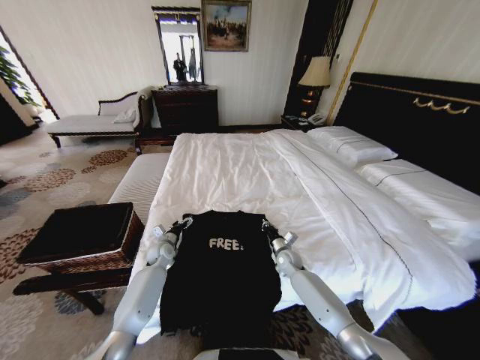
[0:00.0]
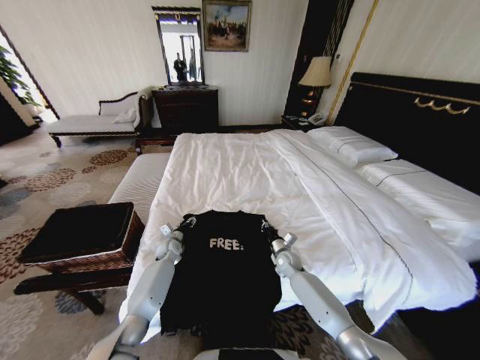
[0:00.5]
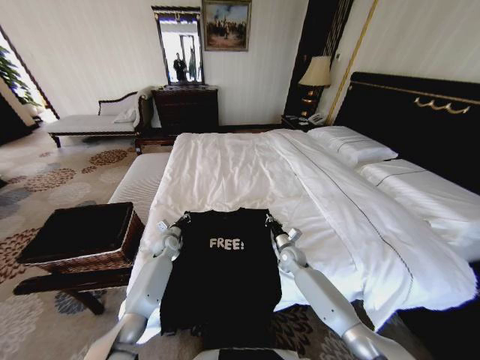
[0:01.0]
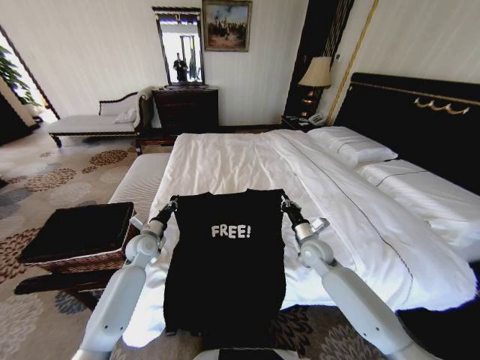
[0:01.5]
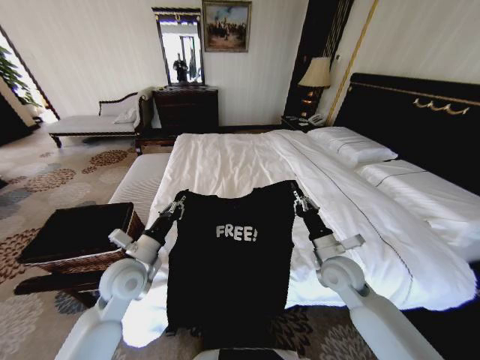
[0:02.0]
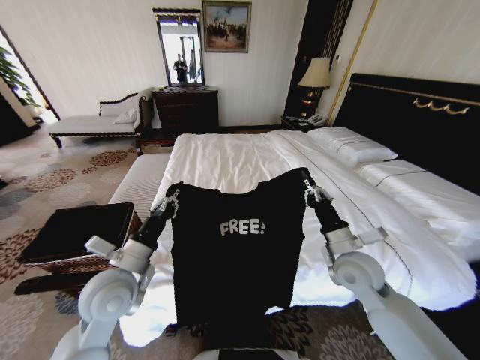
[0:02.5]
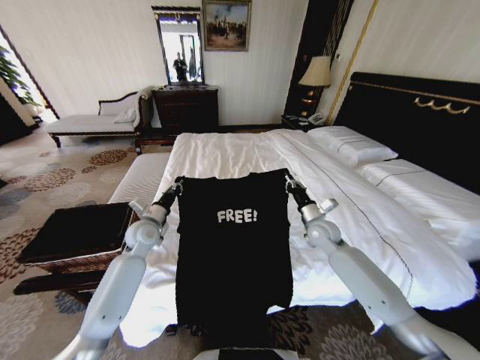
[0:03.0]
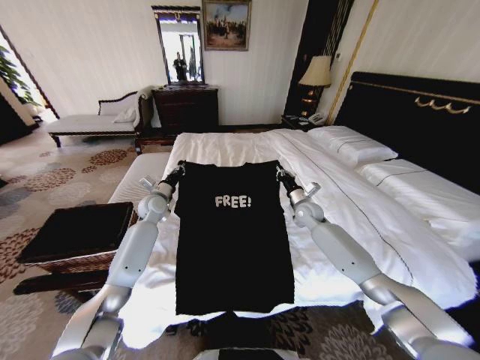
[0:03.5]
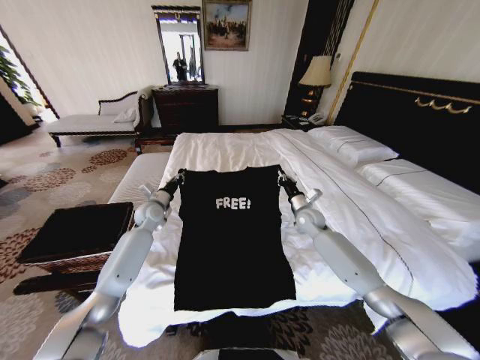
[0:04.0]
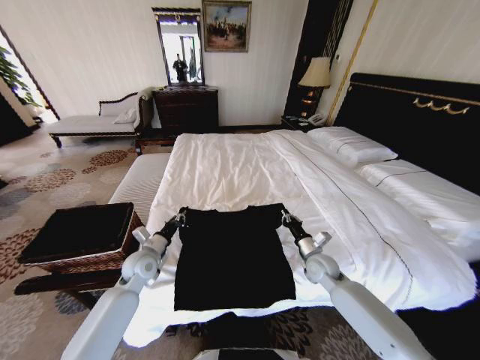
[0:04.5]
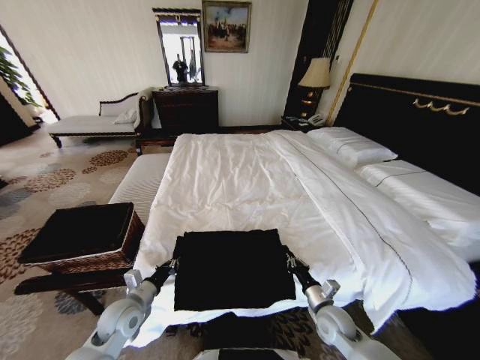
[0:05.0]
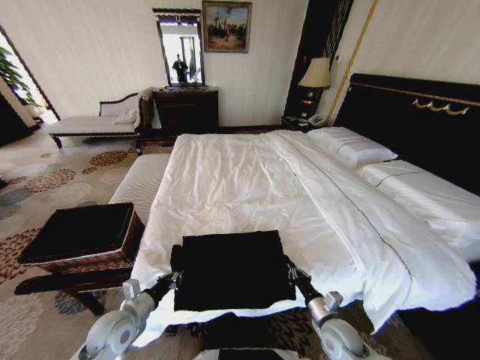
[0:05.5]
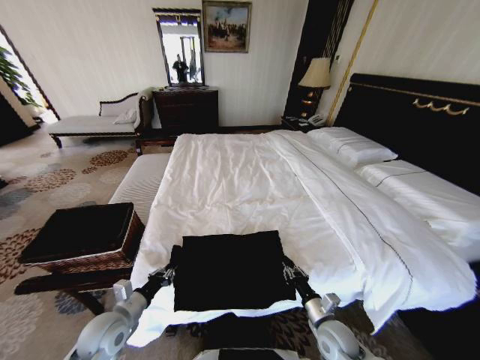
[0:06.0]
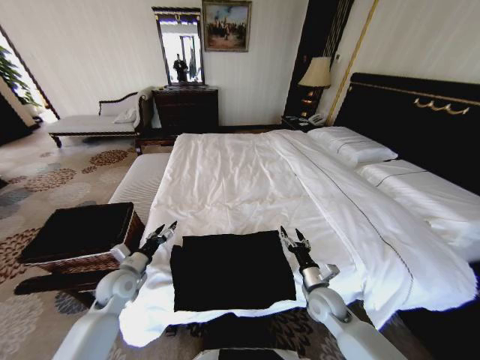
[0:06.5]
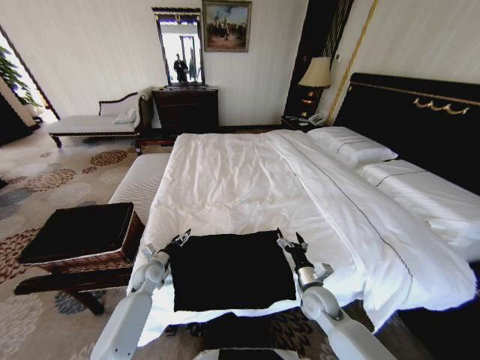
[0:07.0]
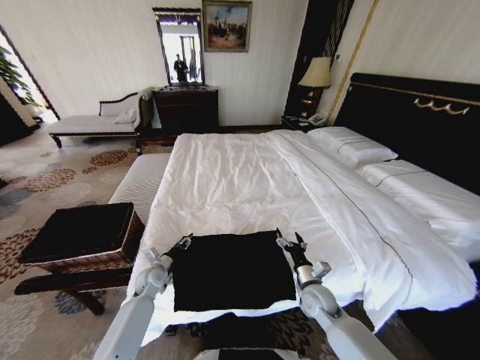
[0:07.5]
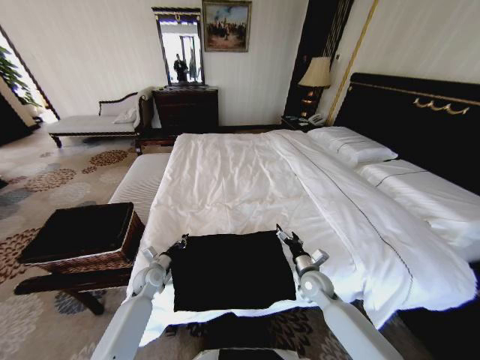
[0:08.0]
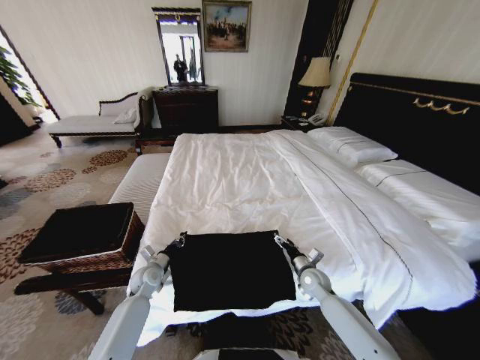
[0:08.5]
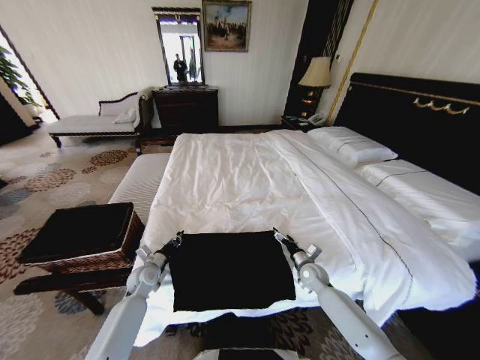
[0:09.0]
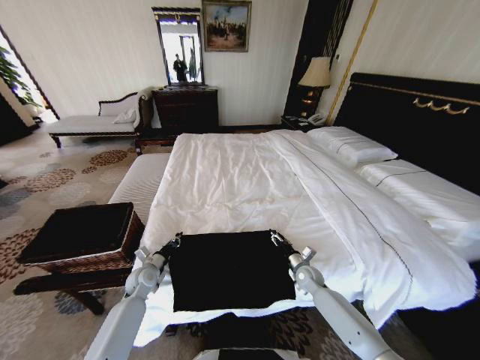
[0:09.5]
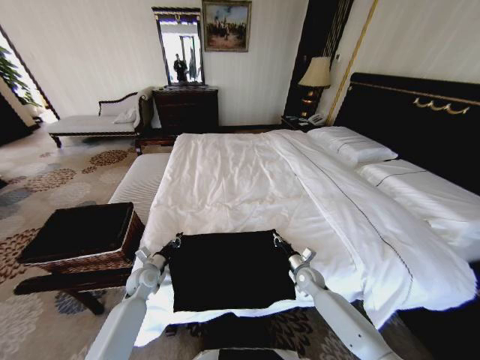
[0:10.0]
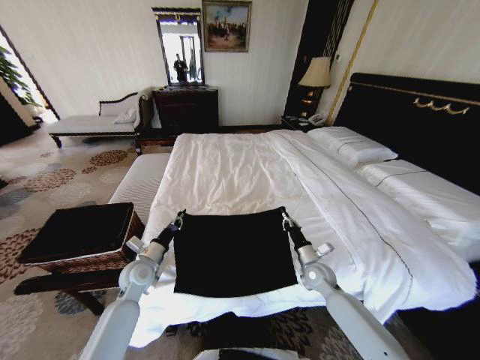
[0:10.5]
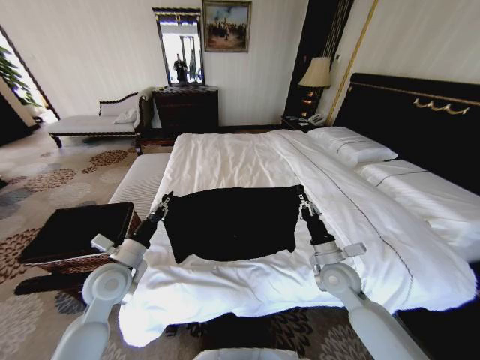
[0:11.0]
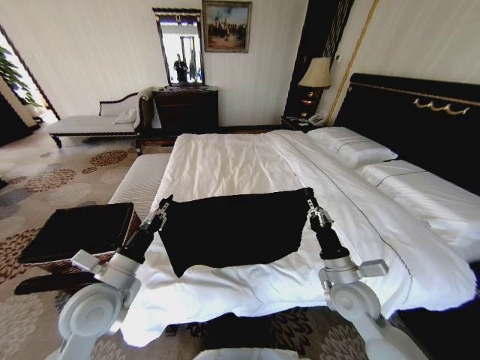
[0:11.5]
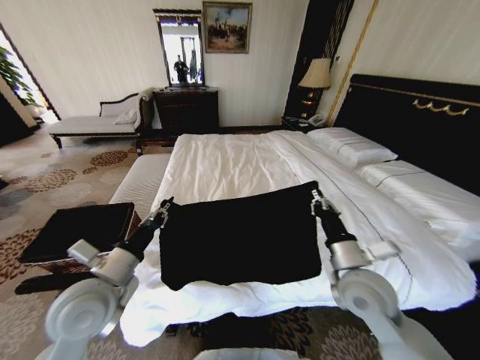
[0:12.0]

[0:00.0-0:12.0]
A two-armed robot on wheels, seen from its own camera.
Task of the whole recording: Fold the clothes on the bed and place them into the basket.
0:00.0 to 0:02.0: Both grippers move upward and backward, approximately 25 cm. The left gripper closes its fingers.
0:02.0 to 0:04.0: Both grippers move forward, roughly 20 cm.
0:04.0 to 0:06.0: The left gripper shifts approximately 30 cm backward. The right gripper goes about 35 cm backward and downward.
0:06.0 to 0:08.0: The right gripper is displaced forward by approximately 15 cm, and opens its fingers. The left gripper goes about 20 cm forward and downward, and opens, then closes again.
0:08.0 to 0:10.0: The right gripper travels downward by about 5 cm, and closes up.
0:10.0 to 0:12.0: Both grippers move upward and backward, some 30 cm.

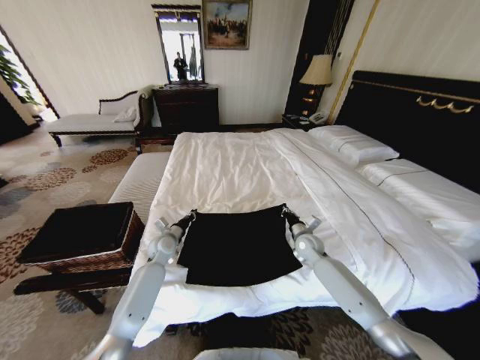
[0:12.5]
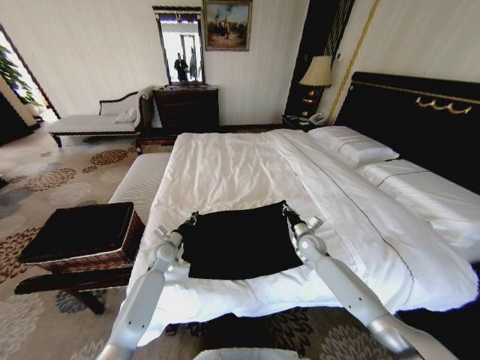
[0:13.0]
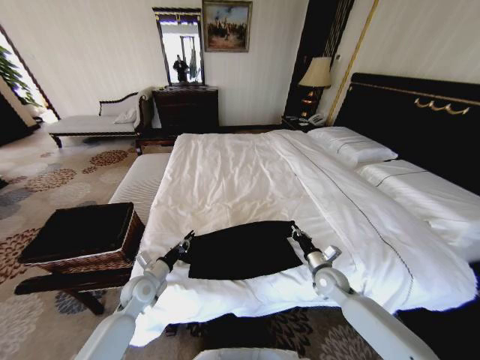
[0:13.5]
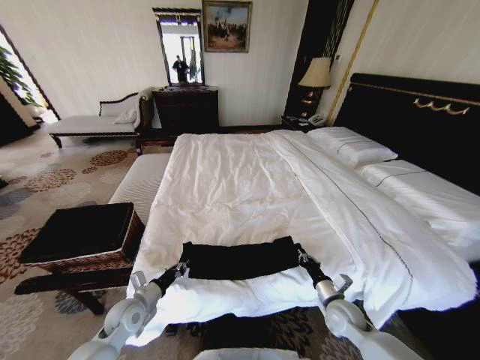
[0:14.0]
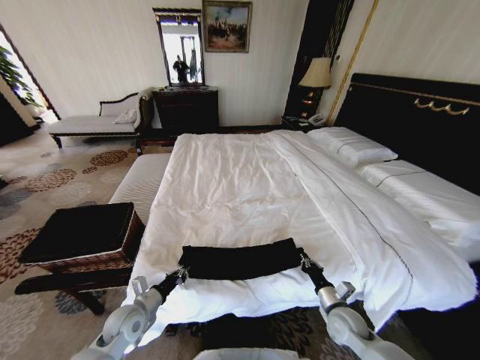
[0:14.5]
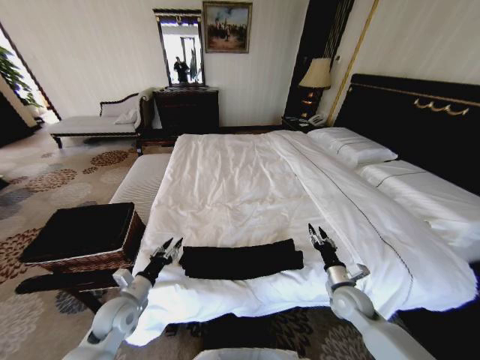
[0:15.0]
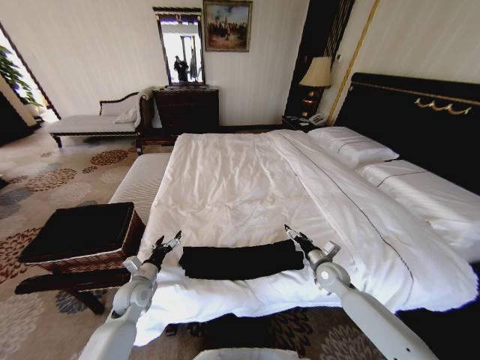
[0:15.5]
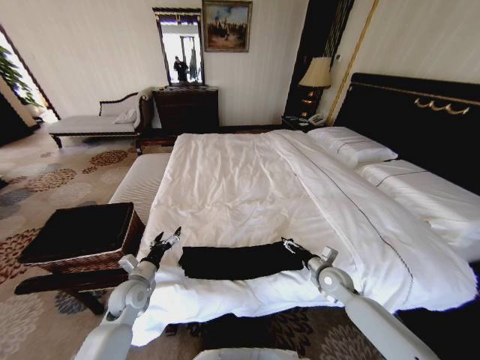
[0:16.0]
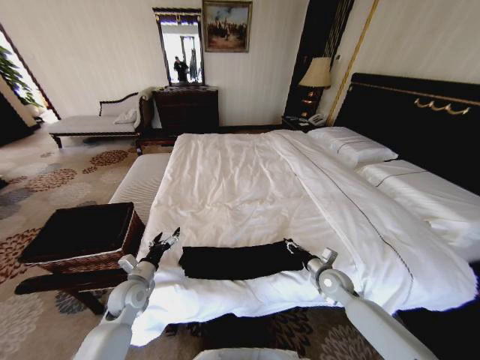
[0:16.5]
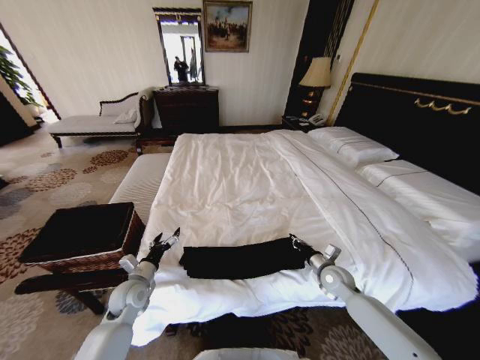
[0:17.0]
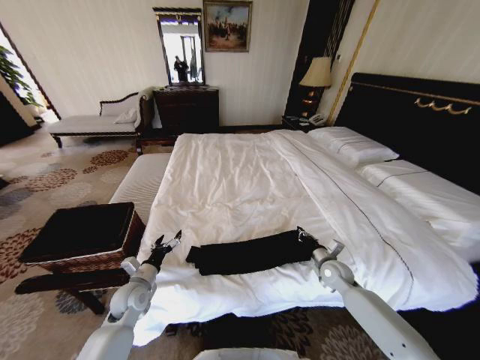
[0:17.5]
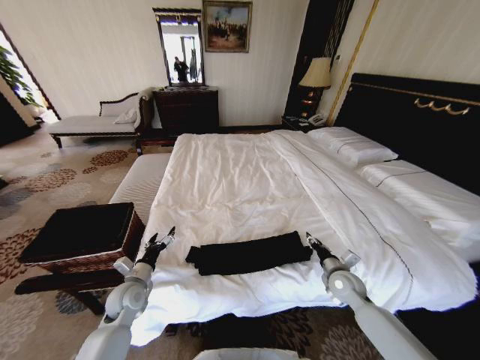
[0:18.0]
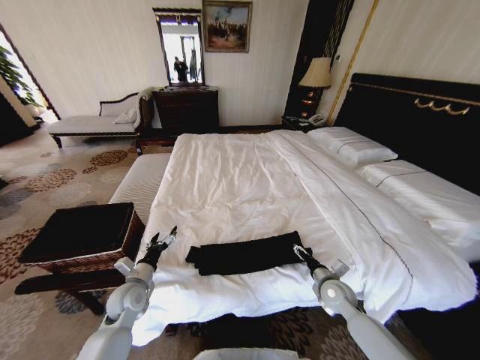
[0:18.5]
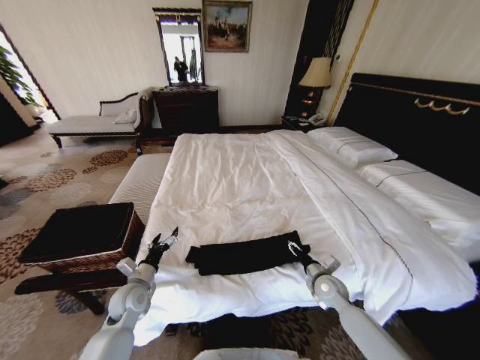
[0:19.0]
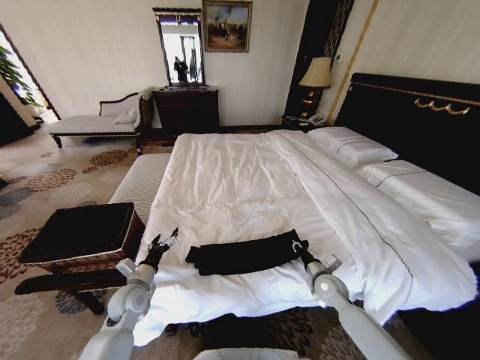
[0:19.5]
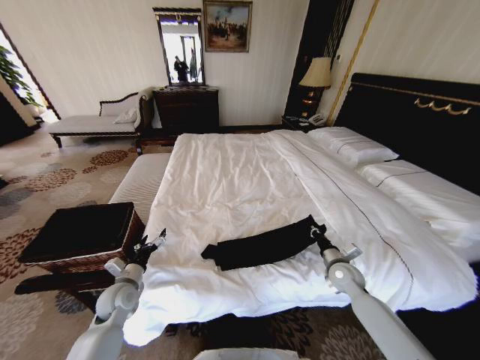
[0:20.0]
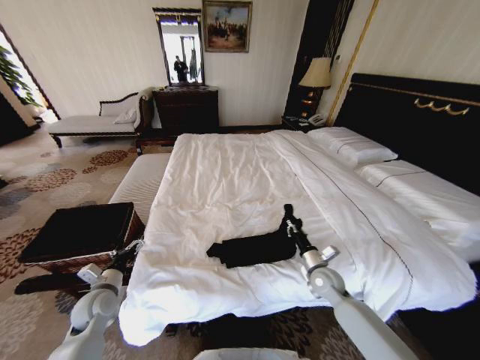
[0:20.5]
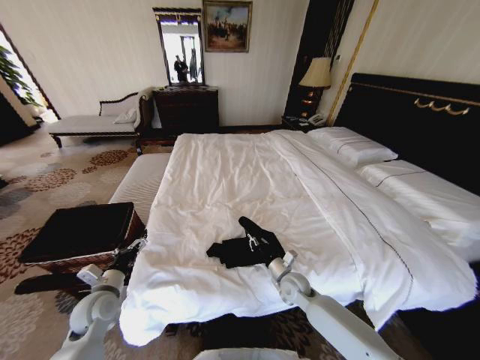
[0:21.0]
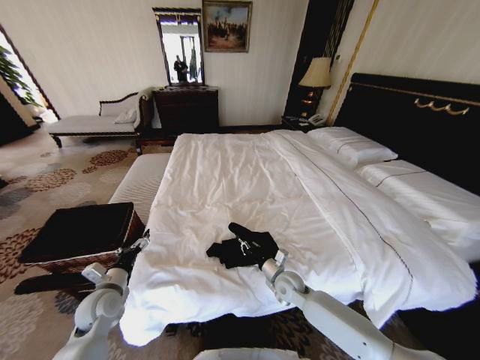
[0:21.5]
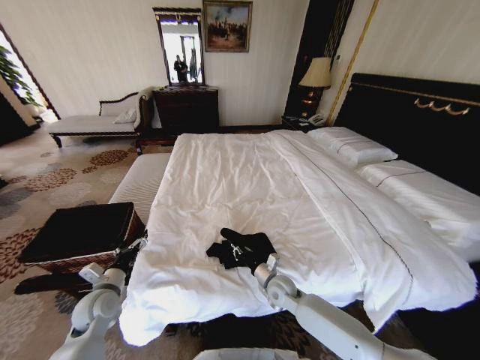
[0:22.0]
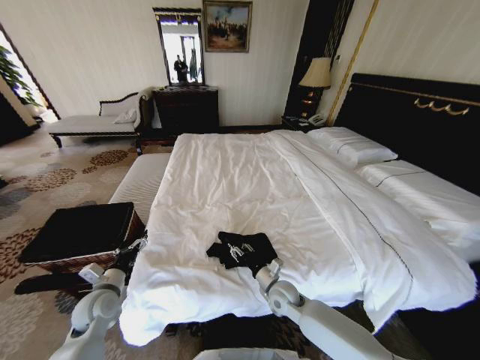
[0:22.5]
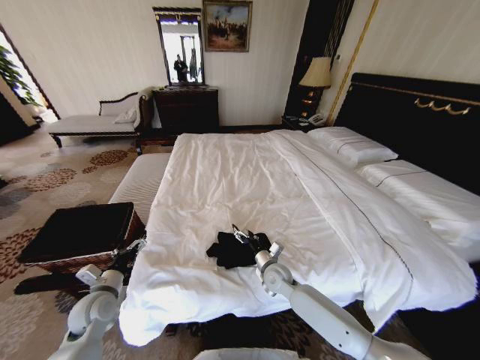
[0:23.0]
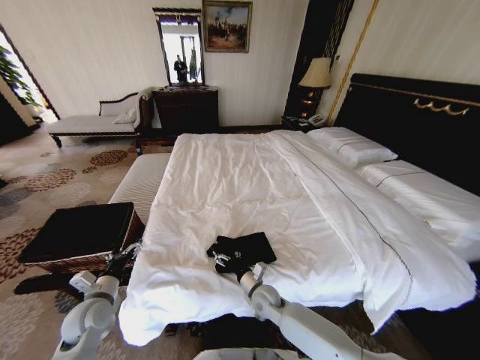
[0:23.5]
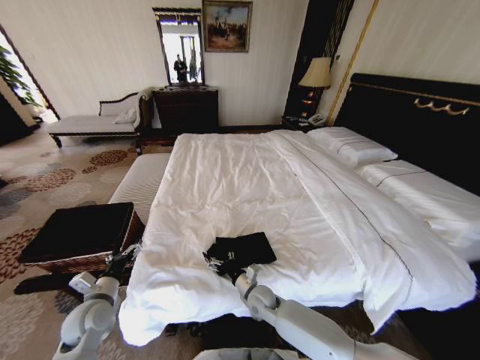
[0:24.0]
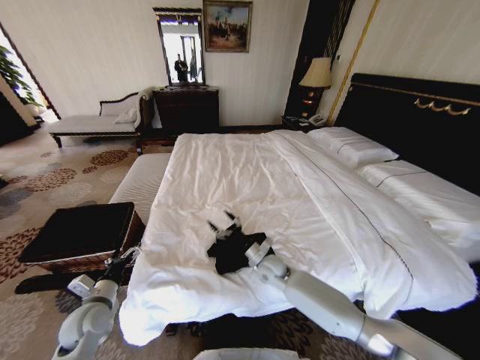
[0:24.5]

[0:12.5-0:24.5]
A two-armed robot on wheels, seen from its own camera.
Task of the whole recording: Fold the clothes on the bed and place them into the basket.
0:12.5 to 0:14.5: Both grippers travel together backward, approximately 20 cm.
0:14.5 to 0:16.5: The left gripper travels forward by about 5 cm, and opens, while the right gripper shifts approximately 10 cm forward, and opens up.
0:16.5 to 0:18.5: The right gripper opens its fingers.
0:18.5 to 0:20.5: The left gripper goes approximately 10 cm to the left, while the right gripper closes its fingers.
0:20.5 to 0:22.5: The right gripper goes roughly 15 cm to the left.
0:22.5 to 0:24.5: The right gripper moves forward and backward over about 10 cm, changing direction 2 times, and opens up.

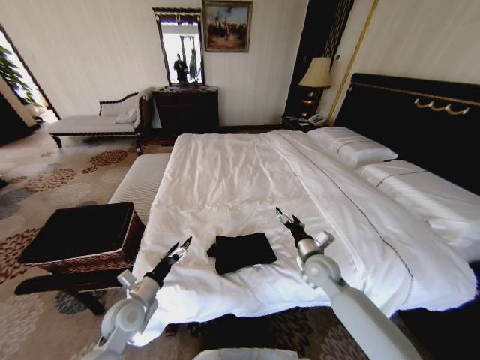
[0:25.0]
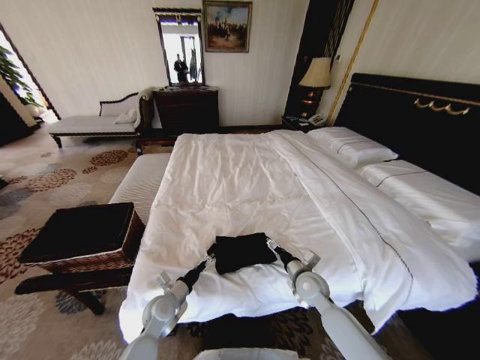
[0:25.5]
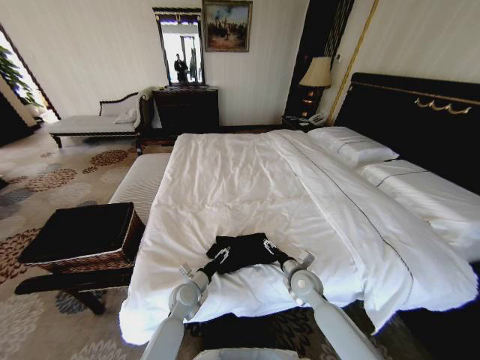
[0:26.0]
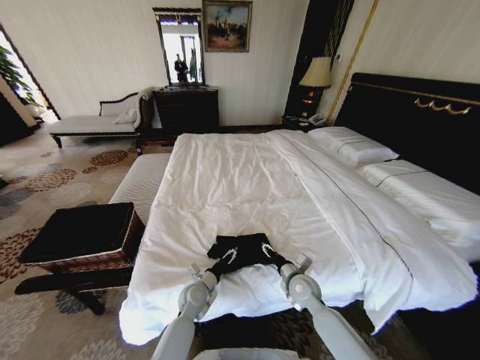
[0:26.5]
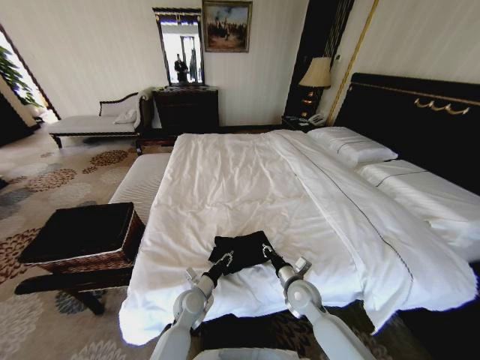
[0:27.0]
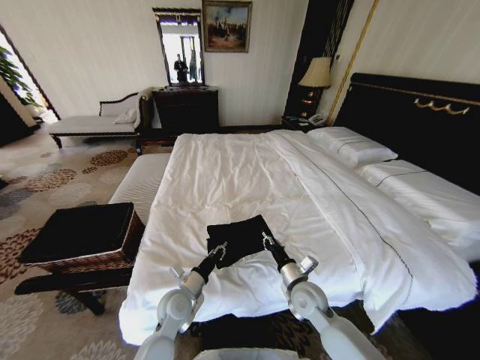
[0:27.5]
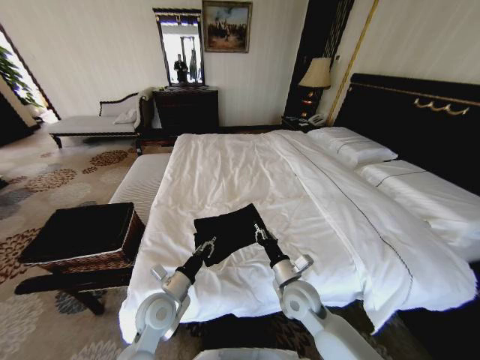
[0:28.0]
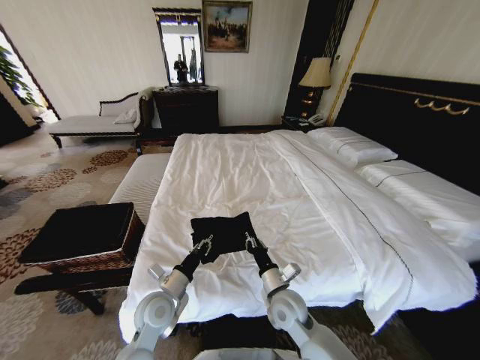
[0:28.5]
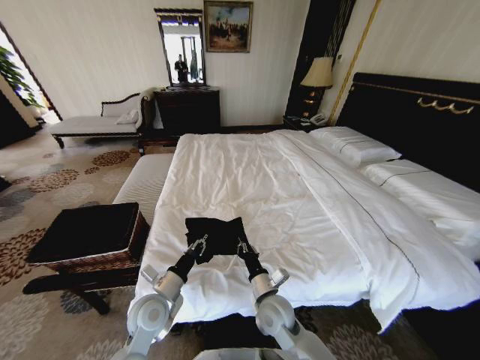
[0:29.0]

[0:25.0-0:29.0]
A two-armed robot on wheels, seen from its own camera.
Task of the whole recording: Fold the clothes on the bed and place them into the basket.
0:25.0 to 0:27.0: The left gripper is displaced to the right and downward by some 20 cm, and closes. The right gripper moves downward and backward, about 10 cm, and closes up.
0:27.0 to 0:29.0: The left gripper goes about 15 cm upward and to the left; the right gripper travels to the left and backward by about 10 cm.
